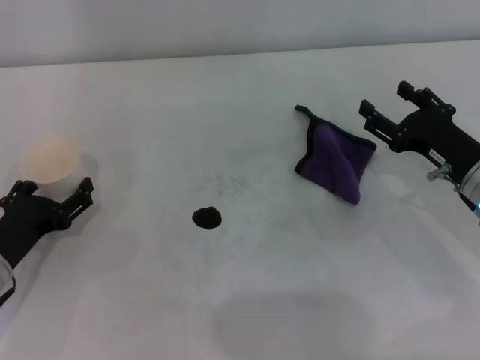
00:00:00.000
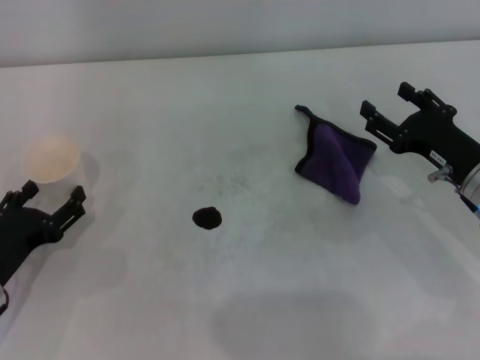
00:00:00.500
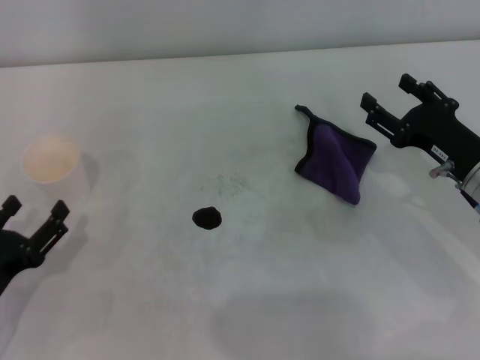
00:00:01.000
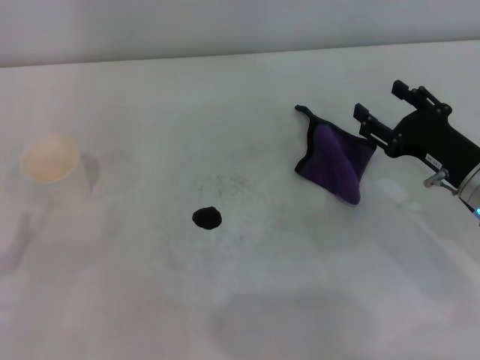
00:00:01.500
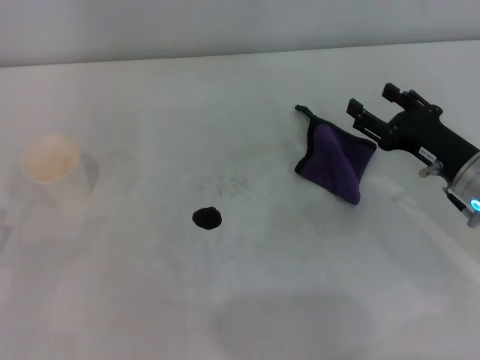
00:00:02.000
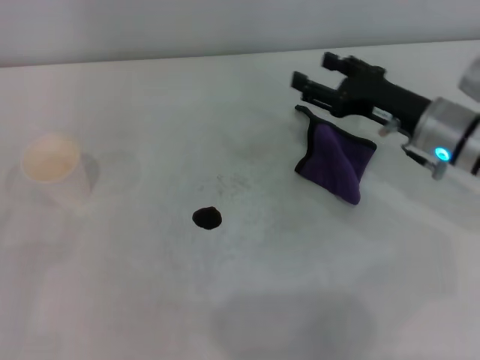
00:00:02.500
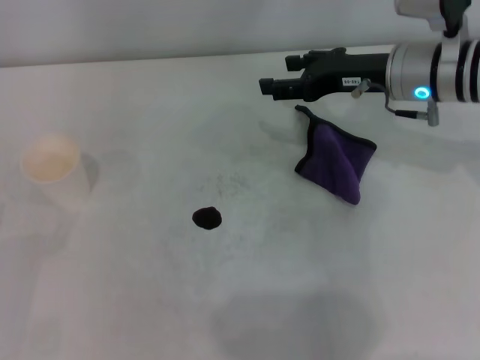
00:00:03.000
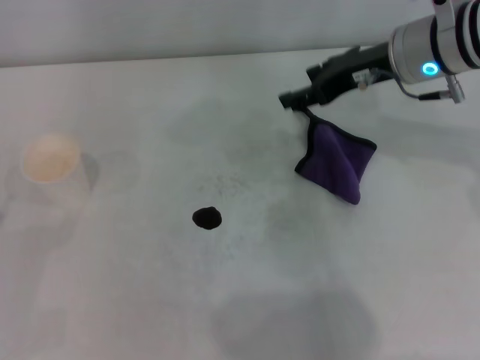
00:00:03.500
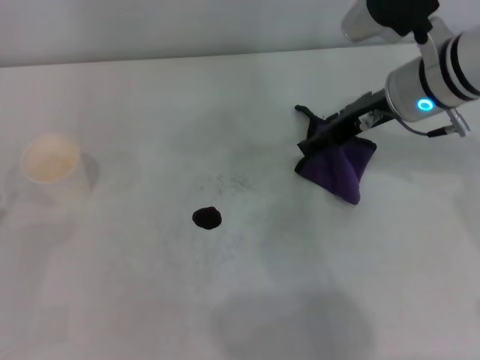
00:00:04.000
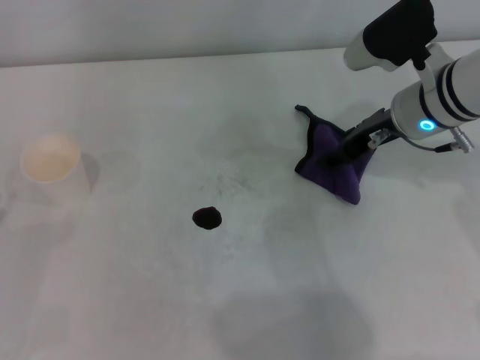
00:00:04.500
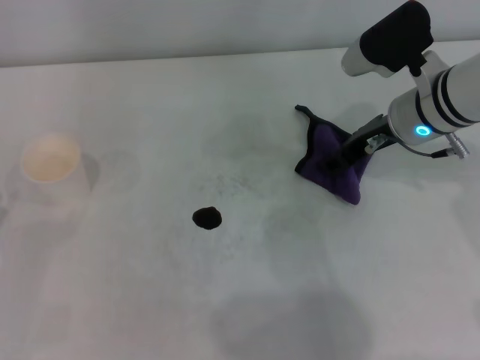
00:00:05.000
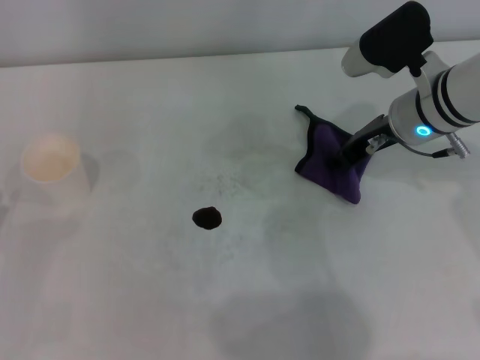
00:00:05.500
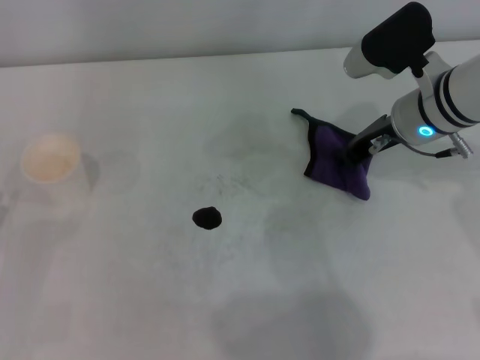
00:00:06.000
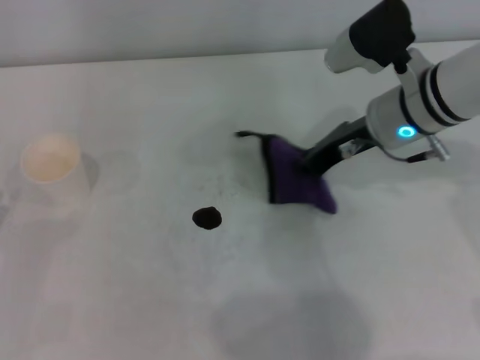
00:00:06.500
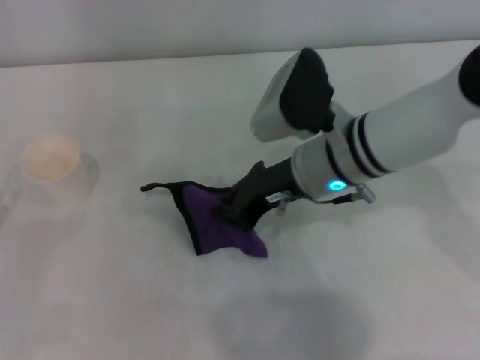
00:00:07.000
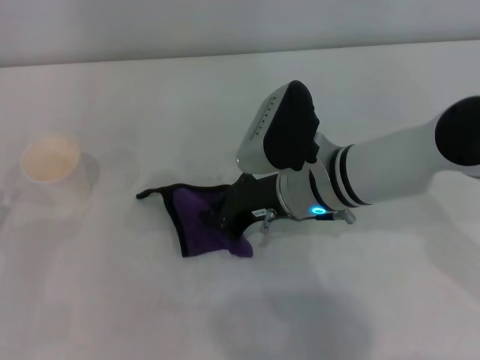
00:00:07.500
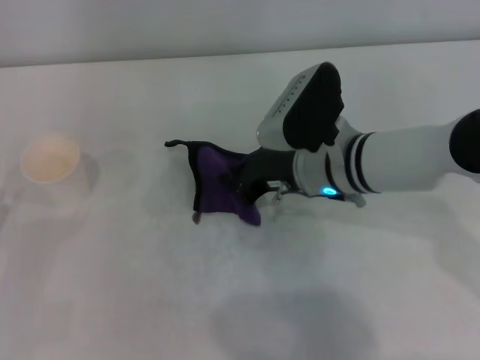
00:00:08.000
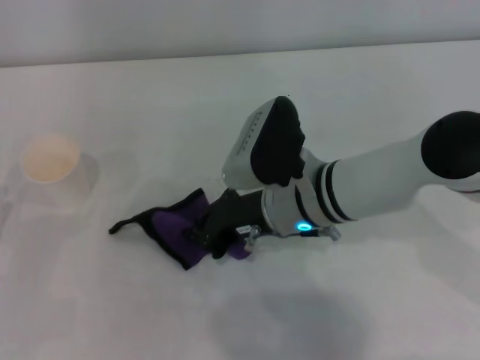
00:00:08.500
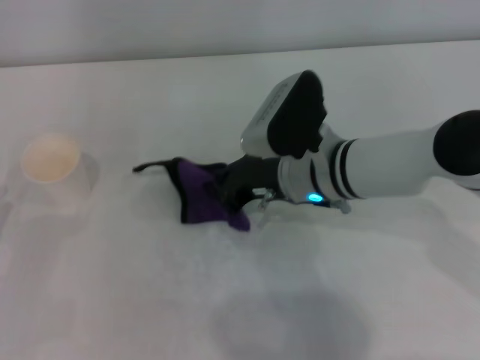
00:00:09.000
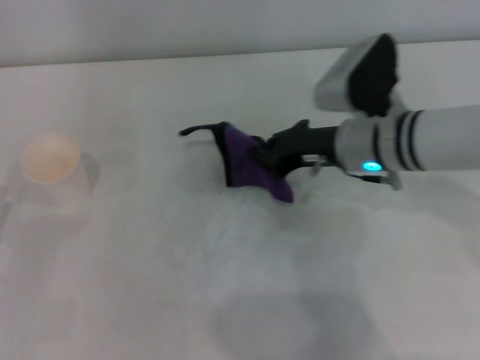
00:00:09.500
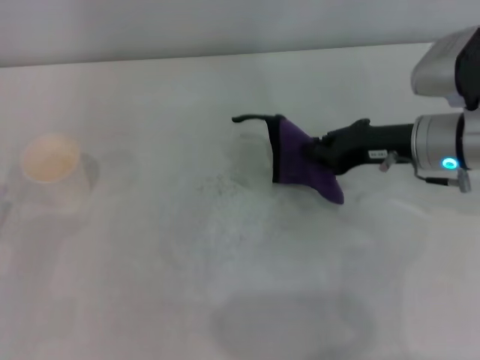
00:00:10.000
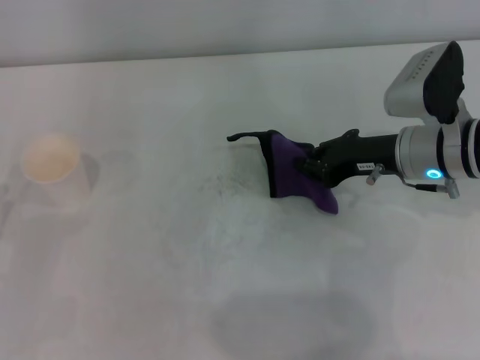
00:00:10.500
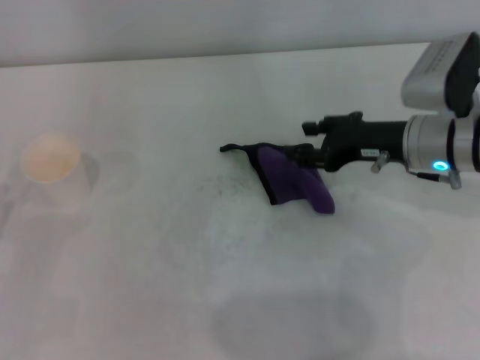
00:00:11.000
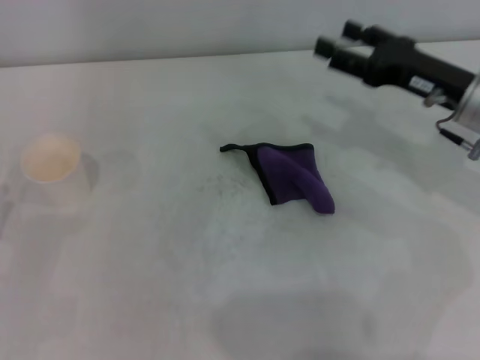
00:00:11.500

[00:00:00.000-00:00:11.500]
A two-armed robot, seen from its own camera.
Step, 00:00:00.000 to 00:00:05.500: Grasp the rag with the right gripper.
Step, 00:00:06.500 to 00:00:09.000: Wipe the stains off the table with the right gripper.
Step, 00:00:09.500 to 00:00:10.500: Place the rag on the table with the right gripper.
00:00:00.000 to 00:00:02.000: The left gripper goes approximately 10 cm backward and to the left.
00:00:02.000 to 00:00:04.000: The right gripper travels upward, forward and to the left by about 15 cm.
00:00:04.000 to 00:00:06.000: The right gripper closes up.
00:00:06.000 to 00:00:07.500: The right gripper is displaced to the left and backward by about 15 cm.
00:00:07.500 to 00:00:09.500: The right gripper travels to the right by roughly 5 cm.
00:00:09.500 to 00:00:11.500: The right gripper shifts some 10 cm to the right, and opens up.

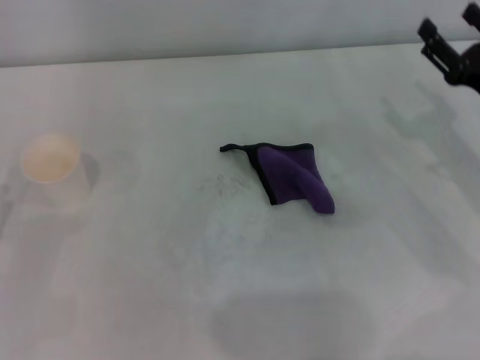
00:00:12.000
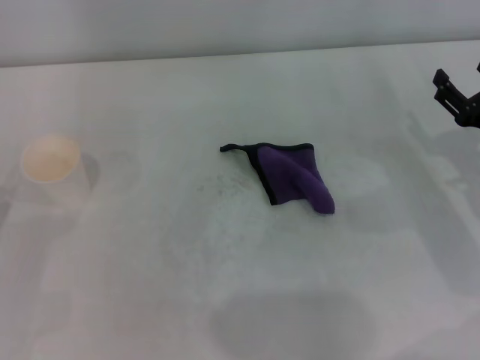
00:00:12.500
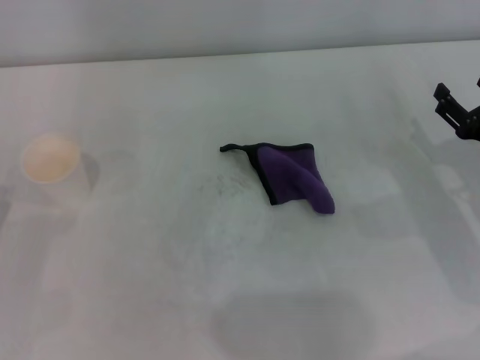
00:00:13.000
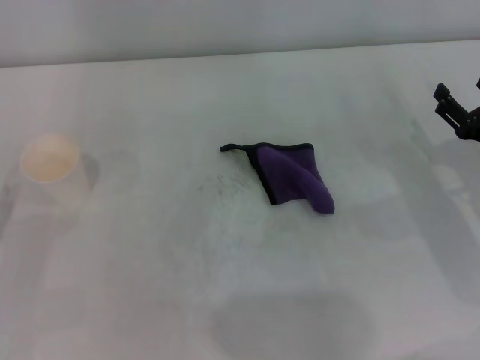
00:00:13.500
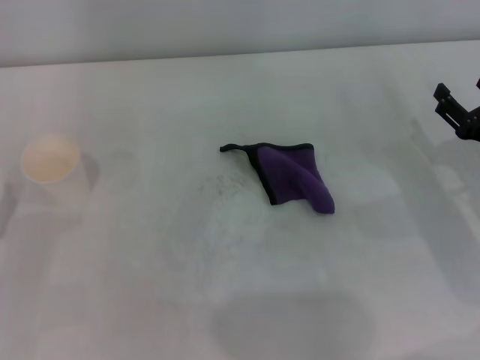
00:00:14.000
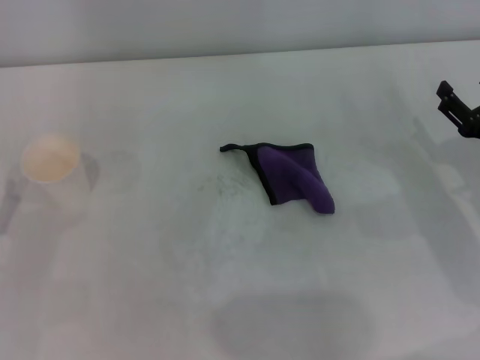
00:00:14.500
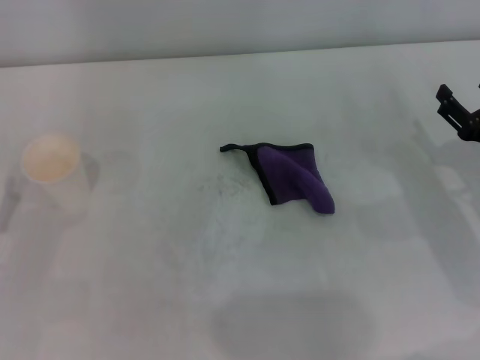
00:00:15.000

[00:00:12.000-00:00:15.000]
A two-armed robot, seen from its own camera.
00:00:12.000 to 00:00:13.500: The right gripper ends up about 5 cm from where it was.
00:00:13.500 to 00:00:15.000: The two grippers keep their place.
